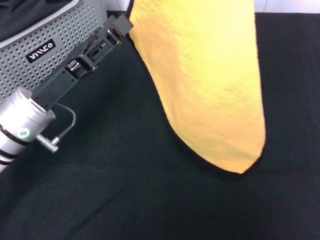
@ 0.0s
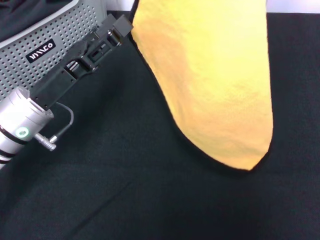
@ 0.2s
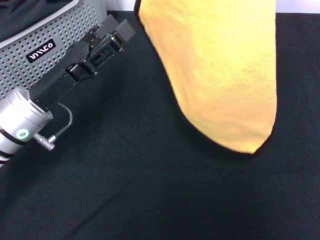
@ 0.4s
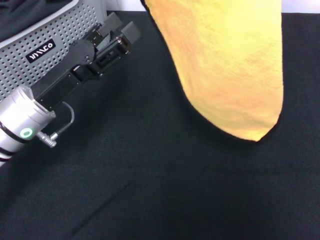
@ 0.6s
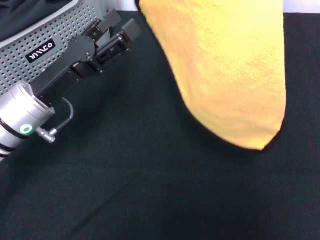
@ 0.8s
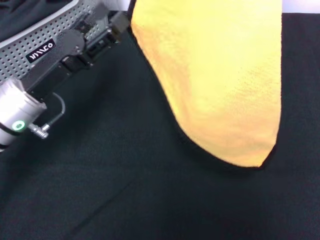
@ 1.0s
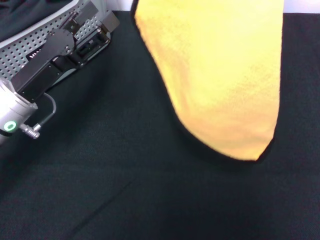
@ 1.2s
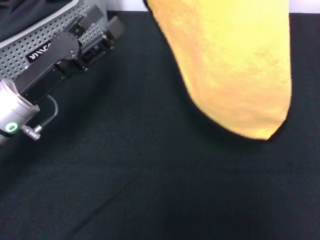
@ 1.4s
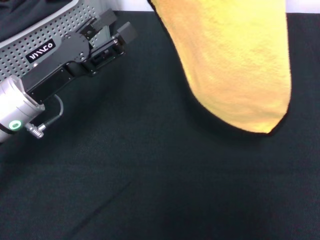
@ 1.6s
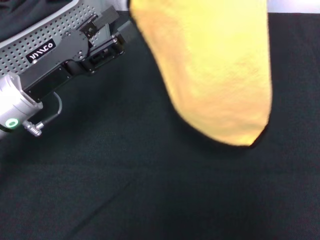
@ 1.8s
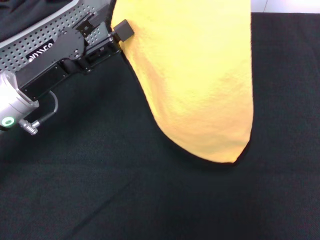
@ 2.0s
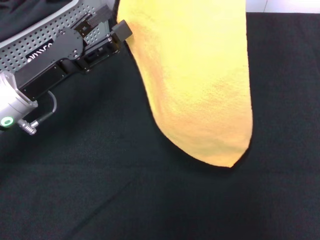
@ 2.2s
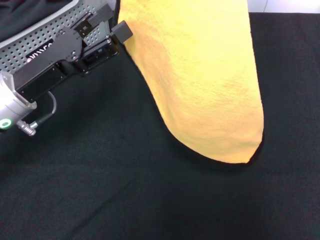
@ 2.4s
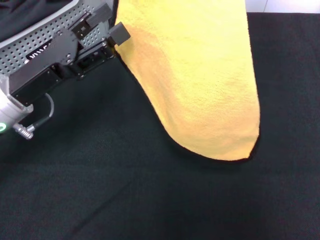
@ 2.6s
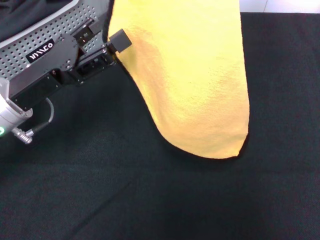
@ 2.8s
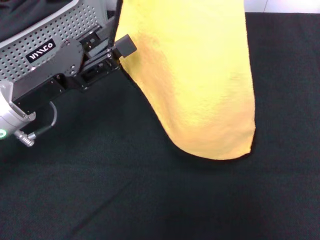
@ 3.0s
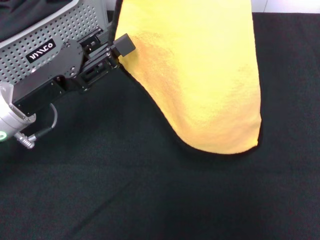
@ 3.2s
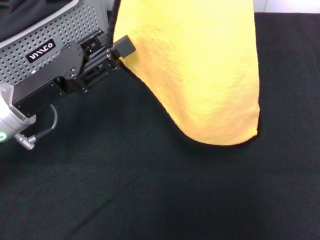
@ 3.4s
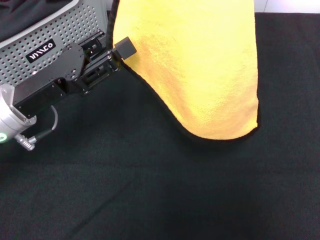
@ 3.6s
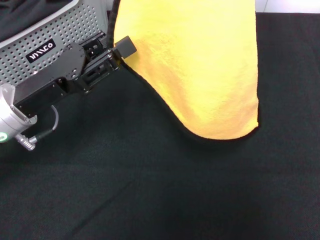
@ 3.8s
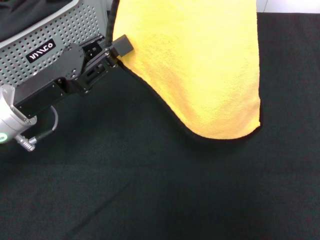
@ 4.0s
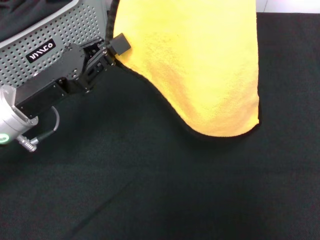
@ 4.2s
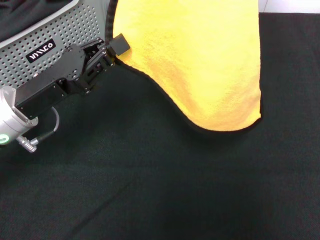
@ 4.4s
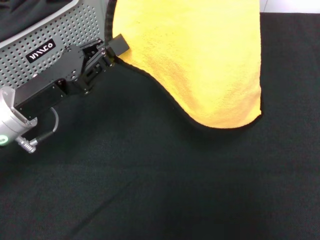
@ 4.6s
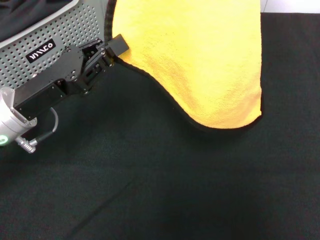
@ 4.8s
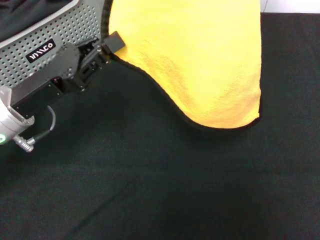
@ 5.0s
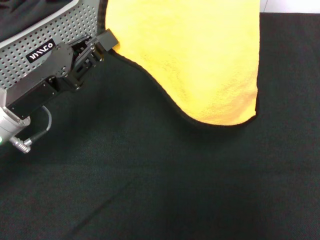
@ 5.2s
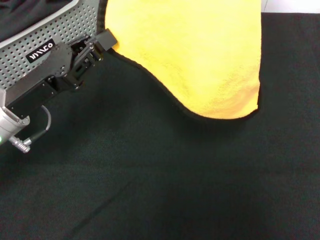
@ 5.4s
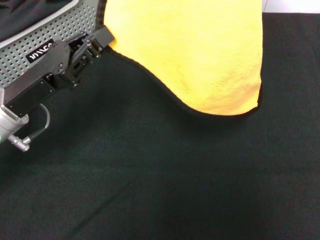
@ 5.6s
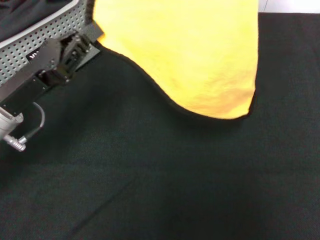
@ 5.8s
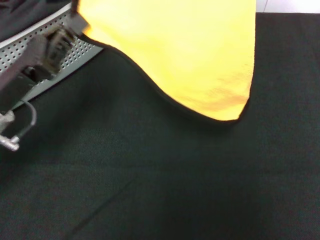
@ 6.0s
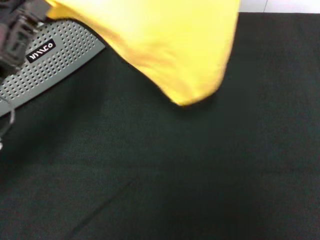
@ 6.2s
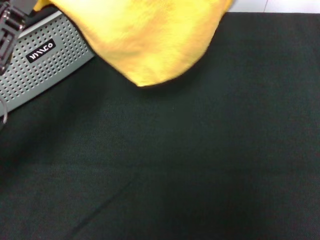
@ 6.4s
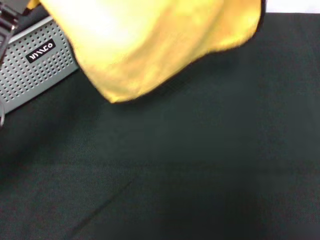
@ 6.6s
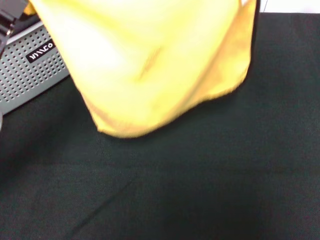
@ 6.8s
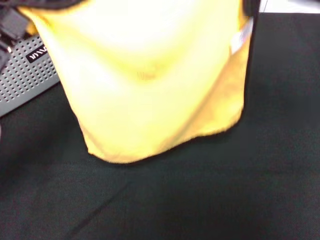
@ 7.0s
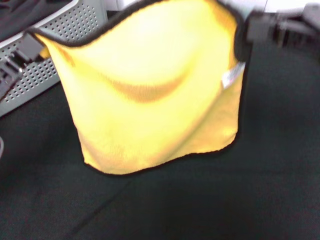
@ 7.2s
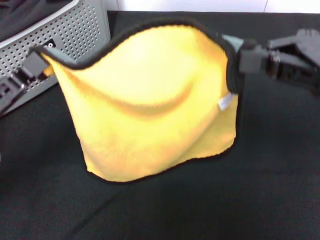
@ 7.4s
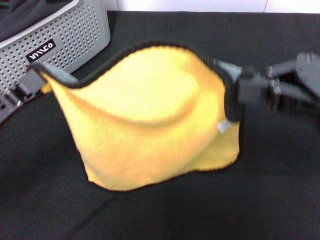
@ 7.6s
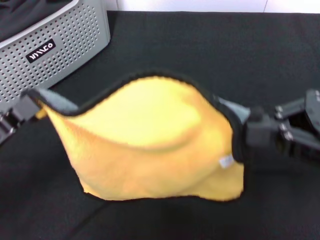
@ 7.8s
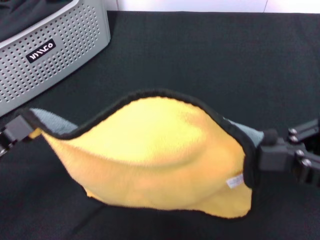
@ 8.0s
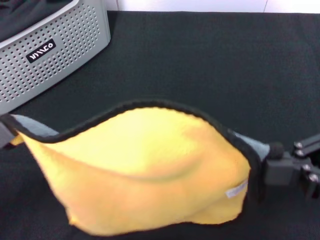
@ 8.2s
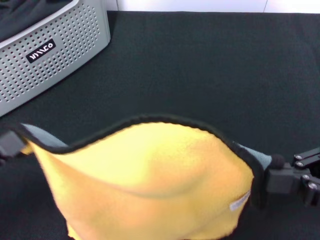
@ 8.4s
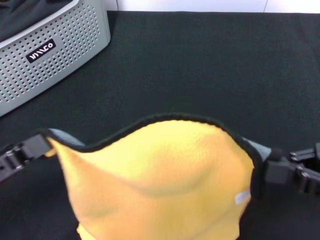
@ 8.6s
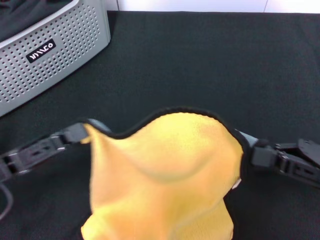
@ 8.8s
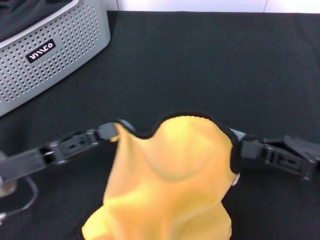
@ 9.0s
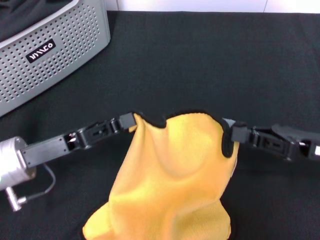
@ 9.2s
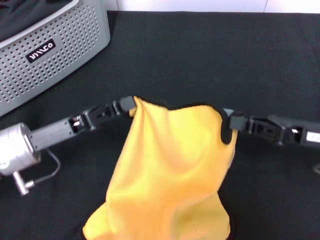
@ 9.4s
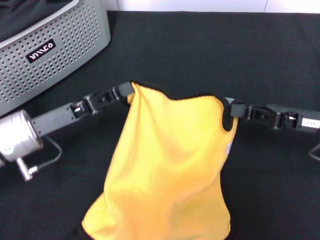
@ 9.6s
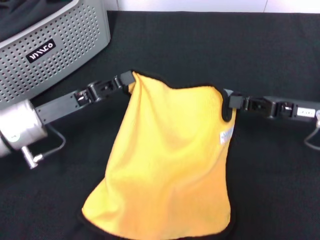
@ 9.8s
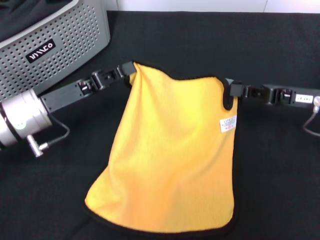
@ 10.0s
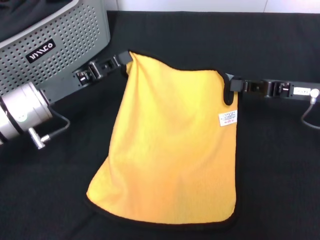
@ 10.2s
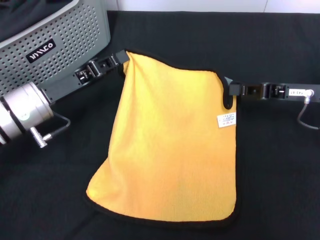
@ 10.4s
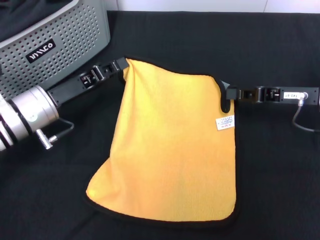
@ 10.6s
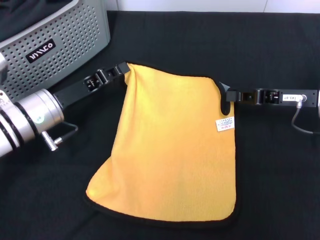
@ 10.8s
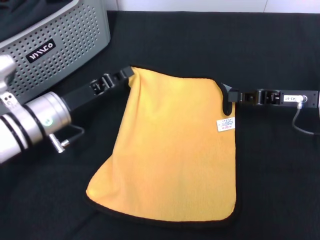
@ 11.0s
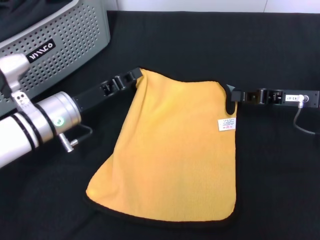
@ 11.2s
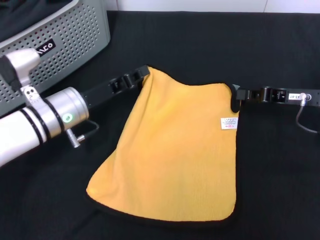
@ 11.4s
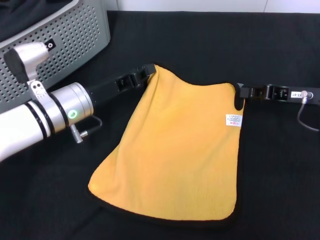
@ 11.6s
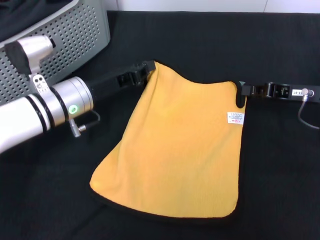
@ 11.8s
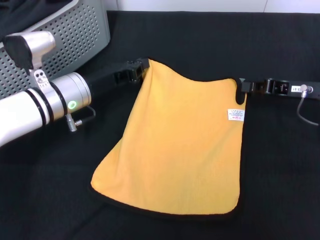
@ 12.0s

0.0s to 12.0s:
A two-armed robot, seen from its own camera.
Task of the whole recording: pick up the towel from the storage box and lay it flat on the black tablecloth.
0.0s to 1.6s: The right gripper is displaced upward by about 10 cm.
3.0s to 4.4s: The left gripper closes up.
4.4s to 6.0s: The grippers stay close to where they were, moving slightly.
6.0s to 7.6s: The right gripper goes some 25 cm downward and backward. The left gripper heads backward, covering approximately 5 cm.
7.6s to 9.0s: The right gripper heads downward, covering approximately 15 cm.
9.0s to 10.4s: Both grippers move forward, about 10 cm.
10.4s to 12.0s: The left gripper changes place by approximately 5 cm.

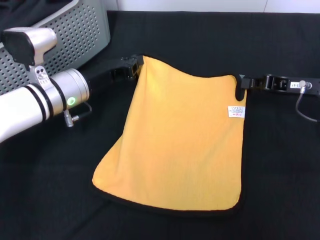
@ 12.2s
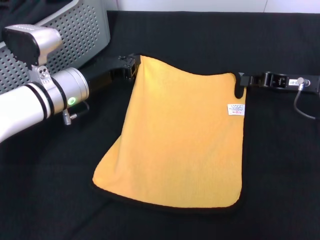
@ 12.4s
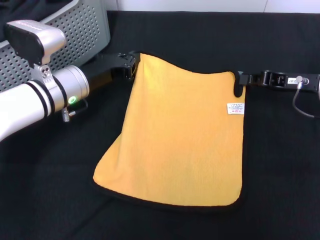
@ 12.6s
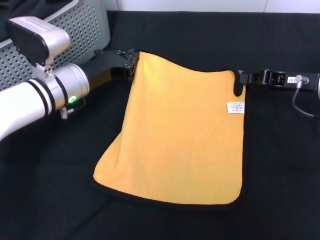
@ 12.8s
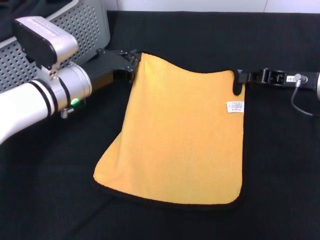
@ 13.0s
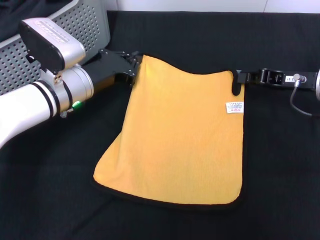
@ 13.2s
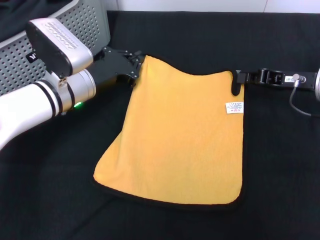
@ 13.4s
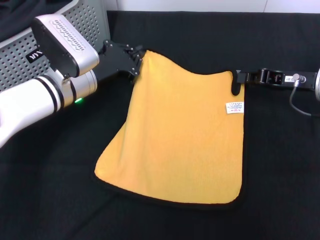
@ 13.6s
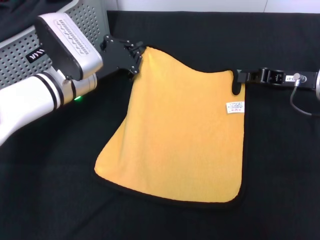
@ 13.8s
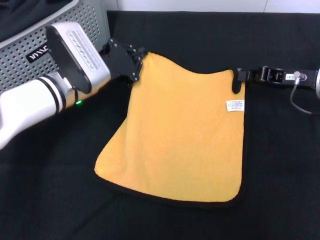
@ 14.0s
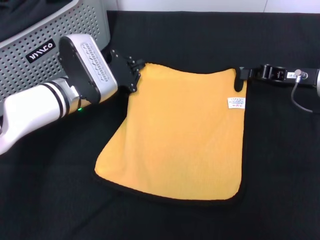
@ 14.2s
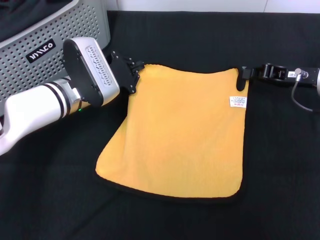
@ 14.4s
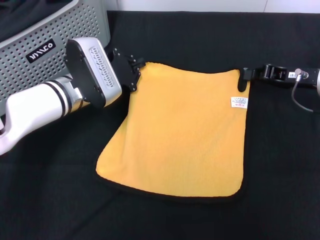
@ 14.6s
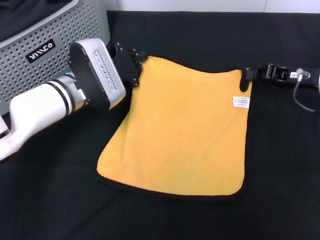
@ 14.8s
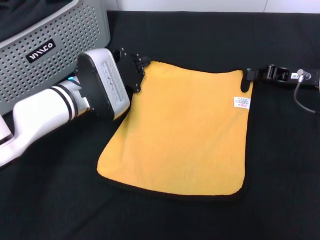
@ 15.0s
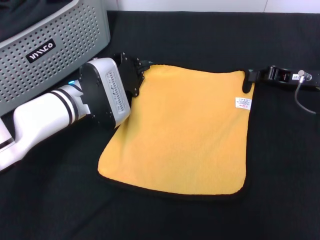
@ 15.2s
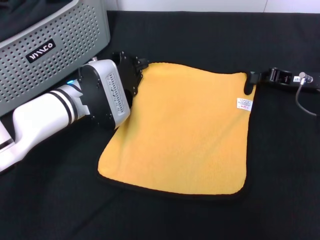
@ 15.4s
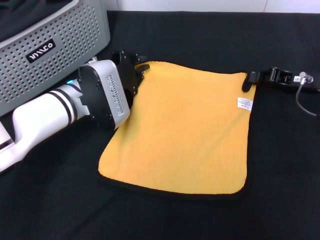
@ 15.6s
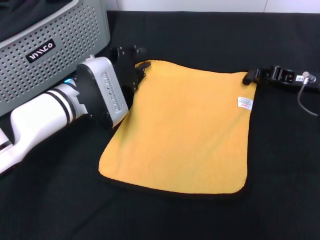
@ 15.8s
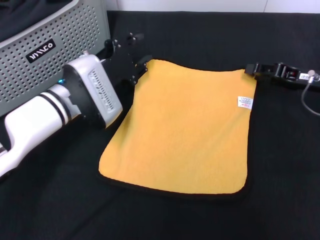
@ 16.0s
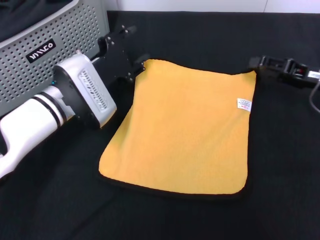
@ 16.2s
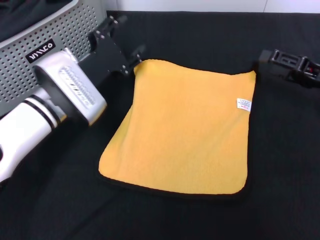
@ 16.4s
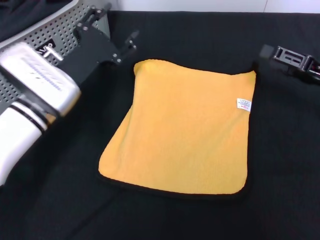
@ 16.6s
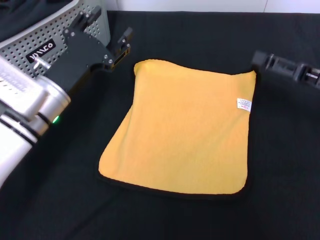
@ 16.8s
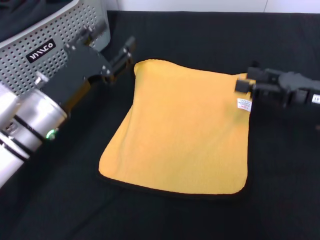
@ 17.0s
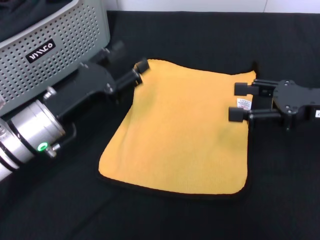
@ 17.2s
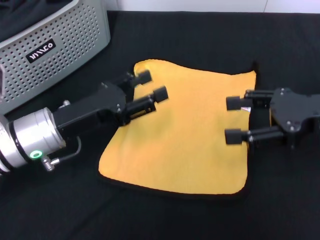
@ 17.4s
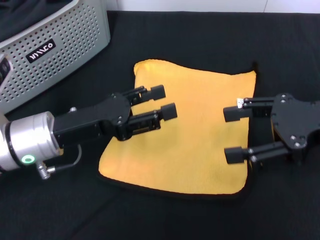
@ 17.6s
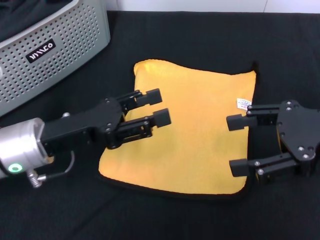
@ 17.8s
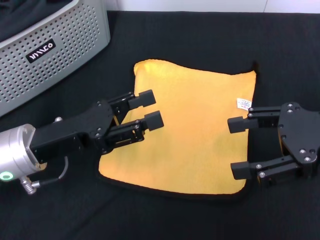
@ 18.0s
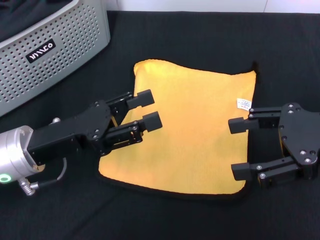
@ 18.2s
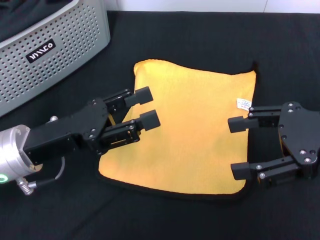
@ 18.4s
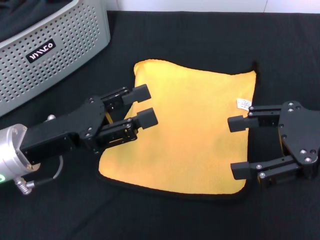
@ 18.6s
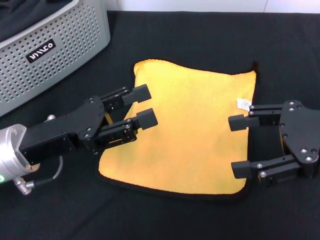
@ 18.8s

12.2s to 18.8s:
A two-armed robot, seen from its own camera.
Task of the whole recording: pick up the towel from the storage box and lay it flat on the black tablecloth.
Step, 12.2s to 16.0s: Spread the towel flat with the right gripper.
15.4s to 17.2s: The right gripper shifts some 10 cm backward and upward, and opens its fingers; the left gripper travels backward by approximately 10 cm, and opens up.
17.2s to 18.8s: The right gripper heads upward, covering roughly 5 cm, while the left gripper ends up roughly 5 cm from where it was.
